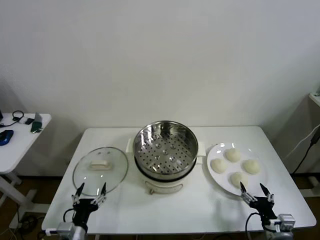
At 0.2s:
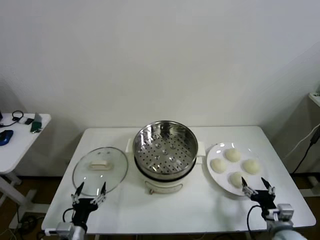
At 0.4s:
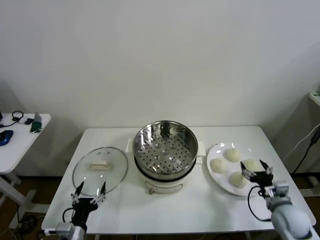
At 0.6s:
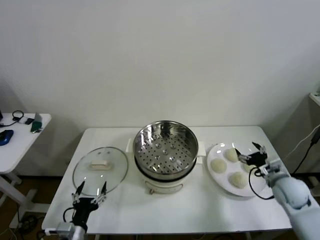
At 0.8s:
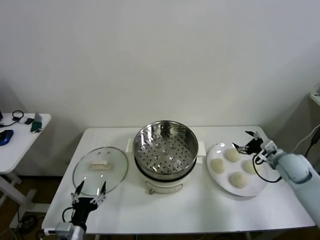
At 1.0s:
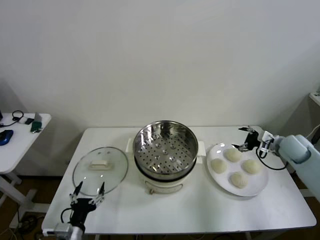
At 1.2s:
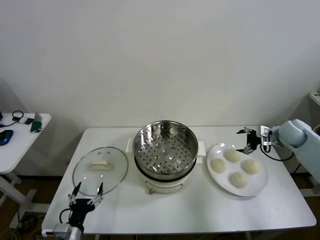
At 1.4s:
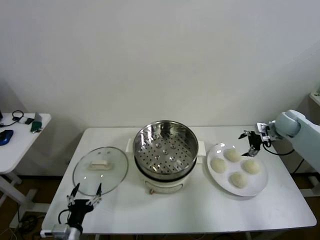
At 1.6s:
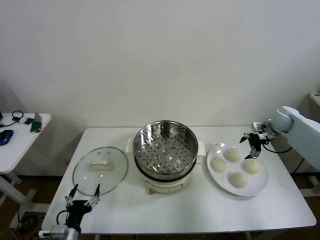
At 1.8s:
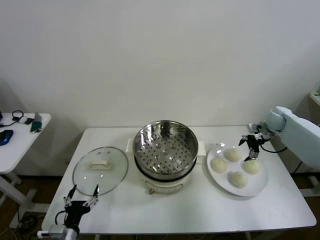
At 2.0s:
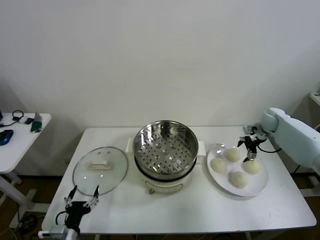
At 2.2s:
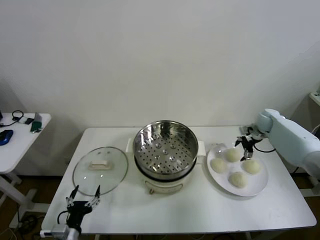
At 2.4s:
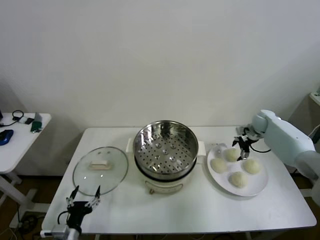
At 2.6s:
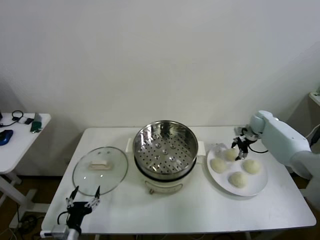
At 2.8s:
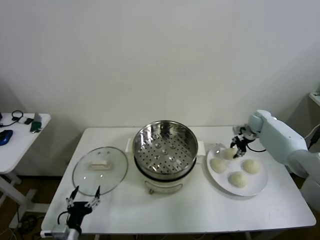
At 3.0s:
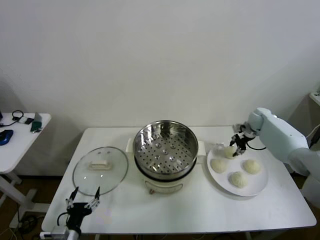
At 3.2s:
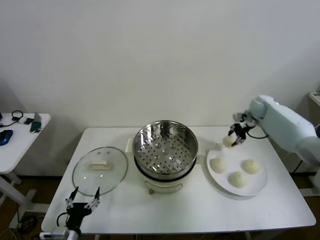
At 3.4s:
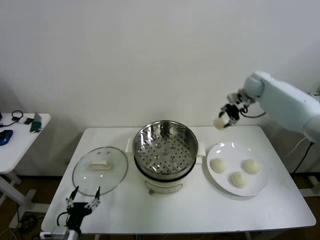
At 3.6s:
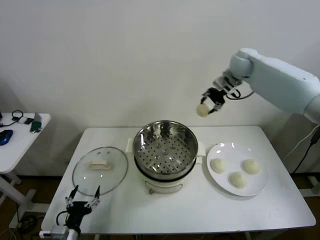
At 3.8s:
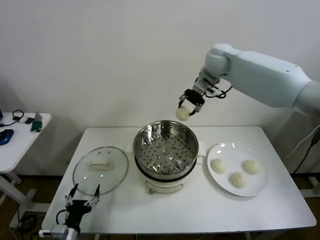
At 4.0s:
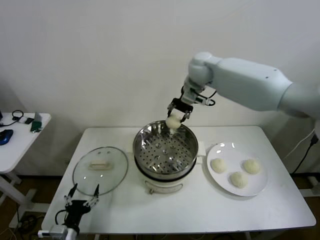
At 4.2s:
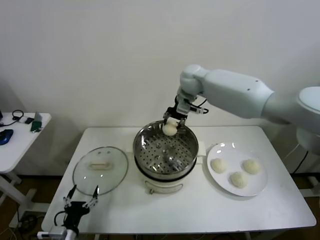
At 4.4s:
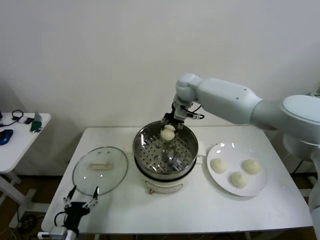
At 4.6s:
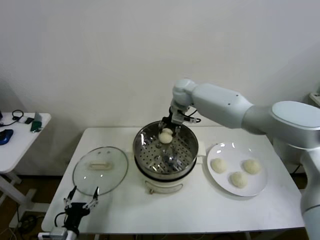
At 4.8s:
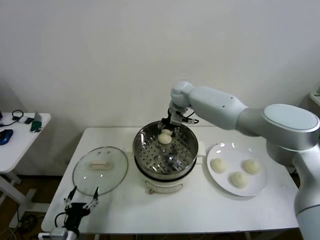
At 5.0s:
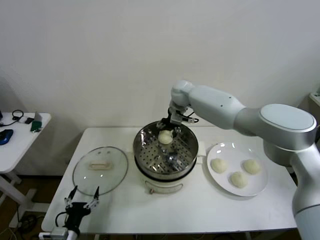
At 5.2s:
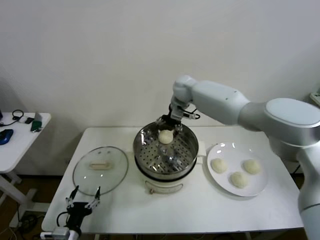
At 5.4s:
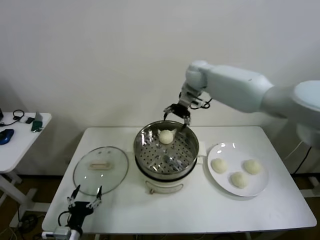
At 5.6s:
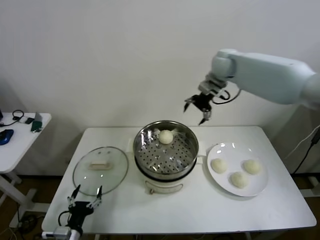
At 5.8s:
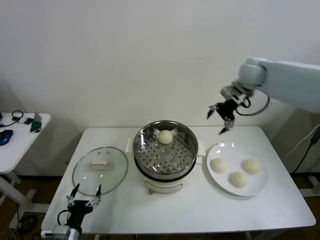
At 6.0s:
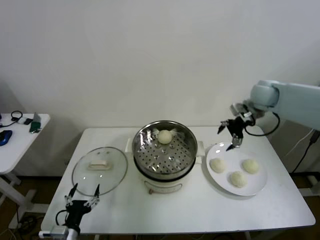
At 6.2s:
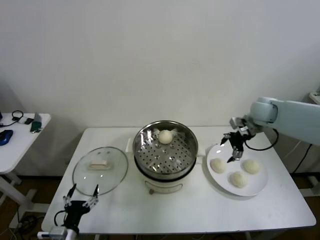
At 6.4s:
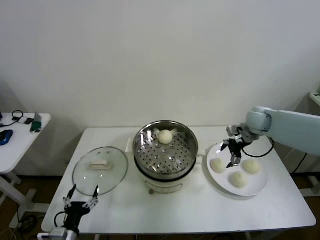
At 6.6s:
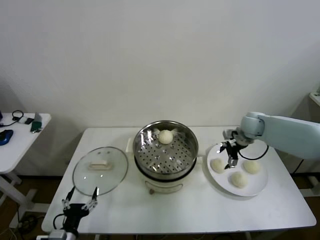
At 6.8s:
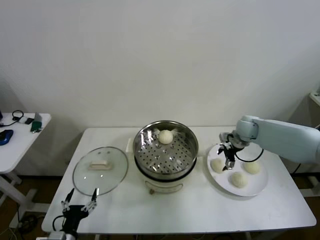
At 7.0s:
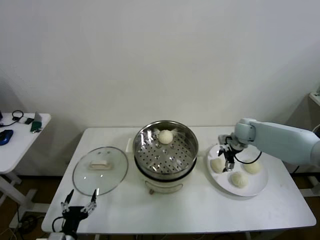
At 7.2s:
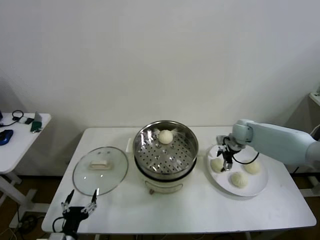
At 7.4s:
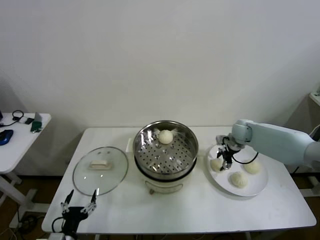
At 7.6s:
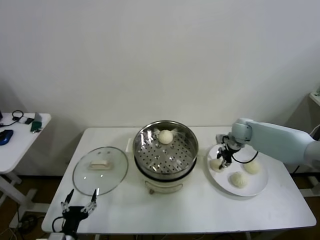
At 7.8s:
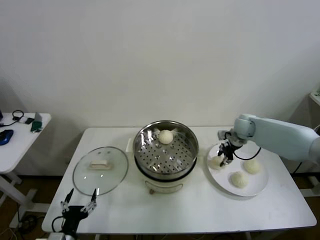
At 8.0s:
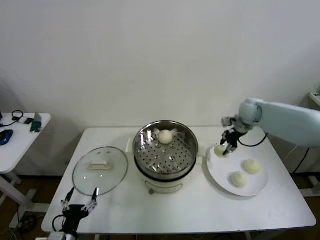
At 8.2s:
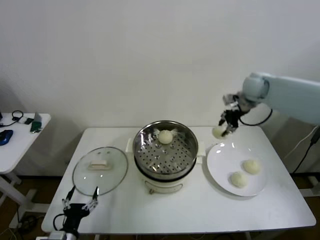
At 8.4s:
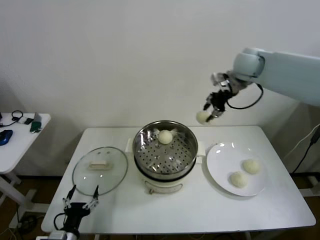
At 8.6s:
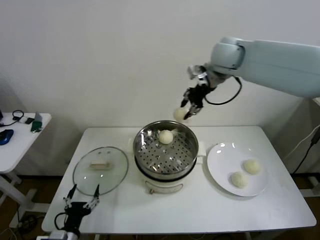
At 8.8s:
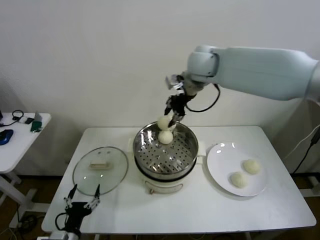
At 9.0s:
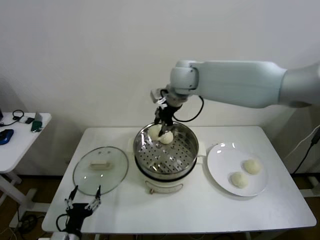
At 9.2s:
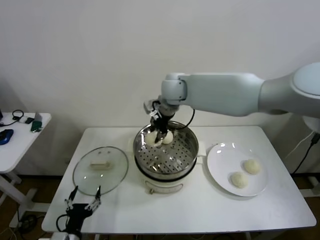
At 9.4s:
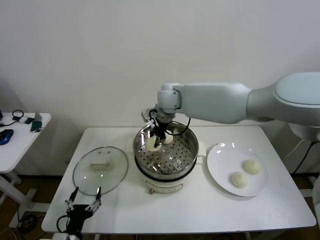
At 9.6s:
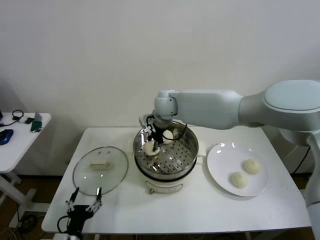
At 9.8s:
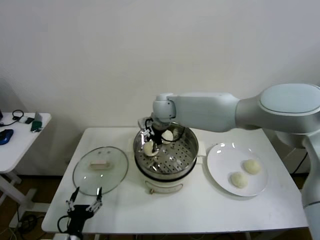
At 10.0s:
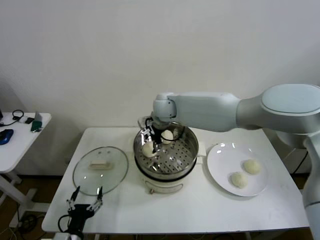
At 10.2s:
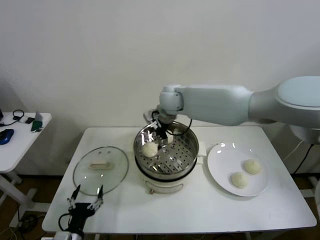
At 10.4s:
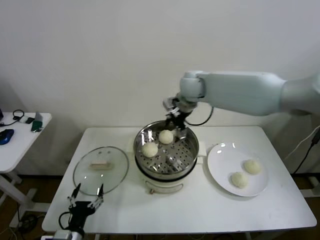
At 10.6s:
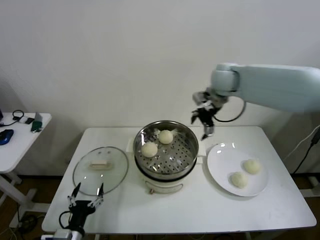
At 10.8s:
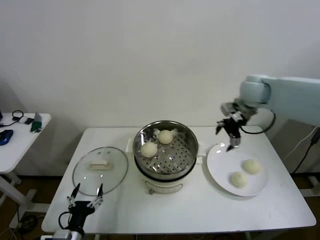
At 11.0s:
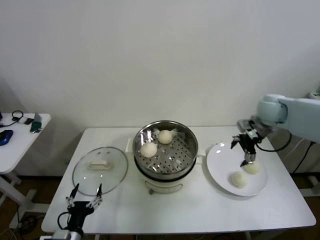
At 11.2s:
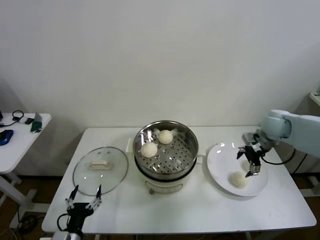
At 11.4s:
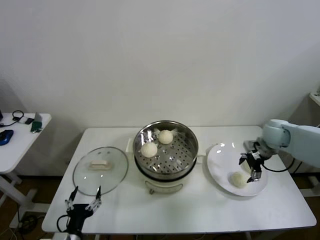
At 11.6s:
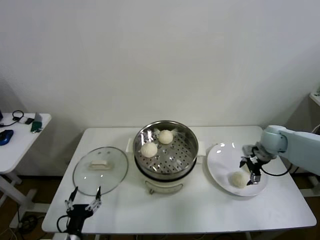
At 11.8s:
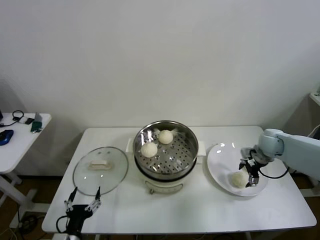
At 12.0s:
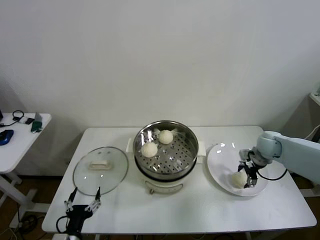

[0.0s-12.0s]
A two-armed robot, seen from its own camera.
Step, 0.0s to 2.8s: Grasp the baozi in the plate with right gripper.
Step, 3.0s to 5.0s: Place the baozi on the steamer with right gripper.
Step, 5.2s to 7.4s: Grasp the baozi in the plate with right gripper.
Step, 7.8s to 10.0s: Place the baozi on the steamer with right gripper.
1.6s to 3.0s: The right gripper heads forward, covering approximately 5 cm, and closes its fingers.
3.0s to 4.4s: The right gripper goes about 35 cm to the left.
4.4s to 6.0s: The right gripper is displaced to the right by approximately 25 cm, and opens.
6.0s to 7.6s: The right gripper heads downward, covering some 15 cm, and closes up.
7.6s to 9.0s: The right gripper travels to the left and upward by roughly 35 cm.
9.0s to 10.4s: The right gripper goes some 10 cm to the right, and opens its fingers.
10.4s to 12.0s: The right gripper moves to the right and downward, approximately 35 cm.

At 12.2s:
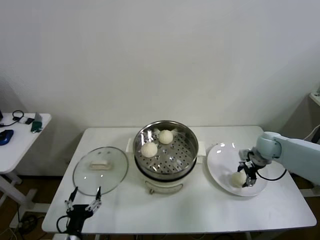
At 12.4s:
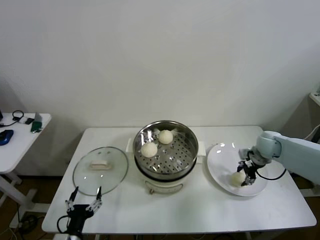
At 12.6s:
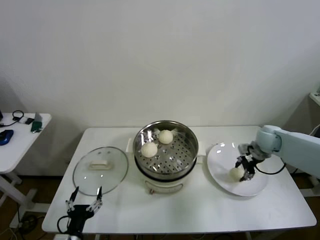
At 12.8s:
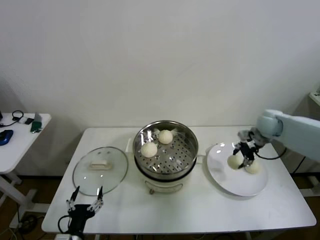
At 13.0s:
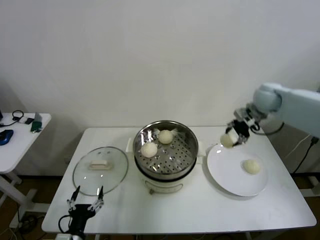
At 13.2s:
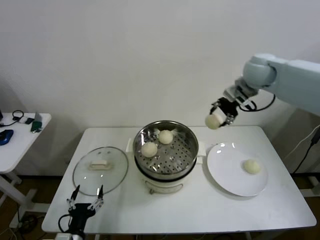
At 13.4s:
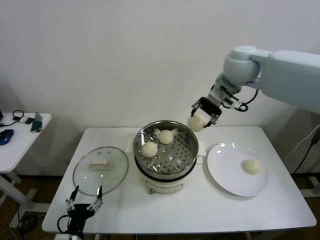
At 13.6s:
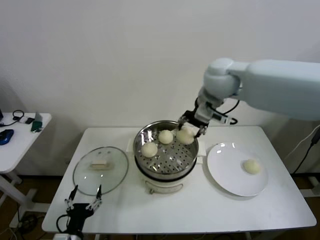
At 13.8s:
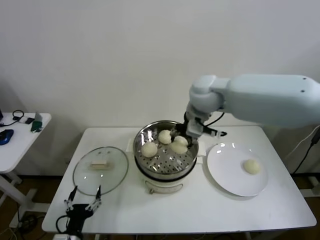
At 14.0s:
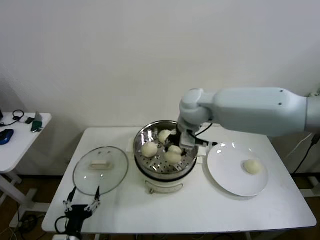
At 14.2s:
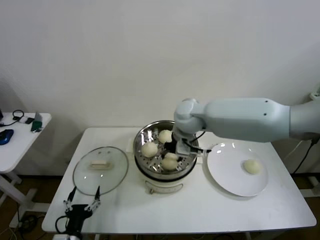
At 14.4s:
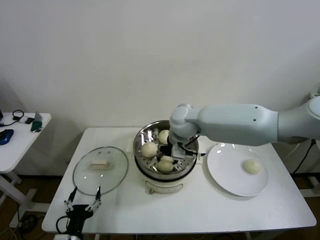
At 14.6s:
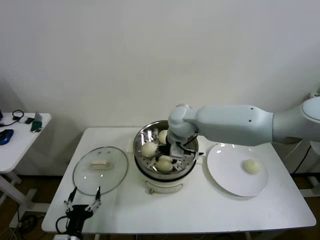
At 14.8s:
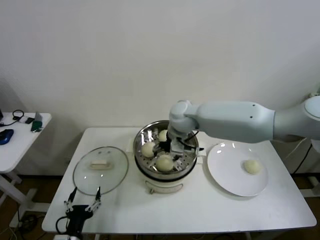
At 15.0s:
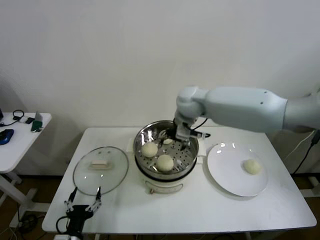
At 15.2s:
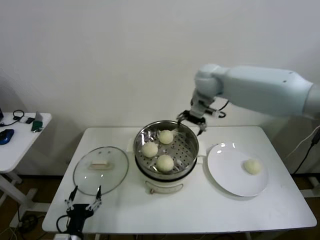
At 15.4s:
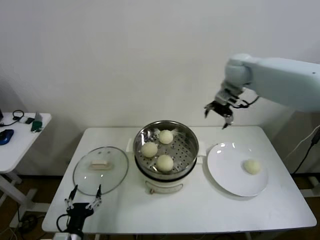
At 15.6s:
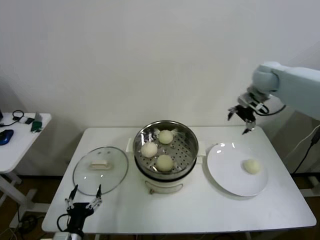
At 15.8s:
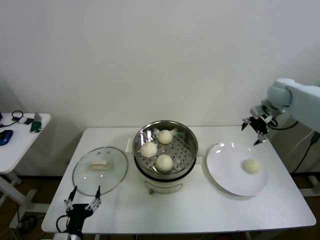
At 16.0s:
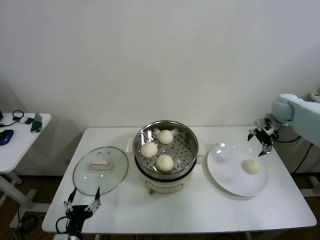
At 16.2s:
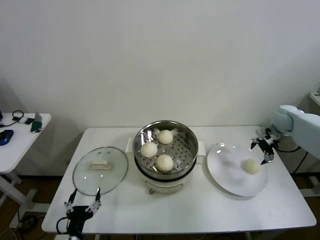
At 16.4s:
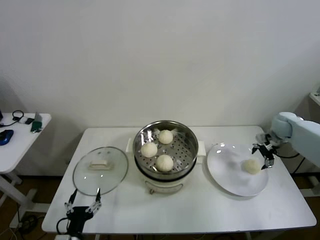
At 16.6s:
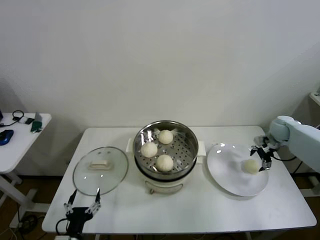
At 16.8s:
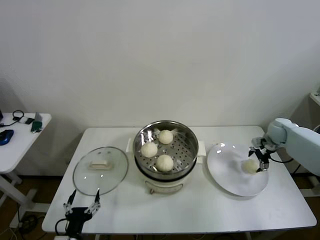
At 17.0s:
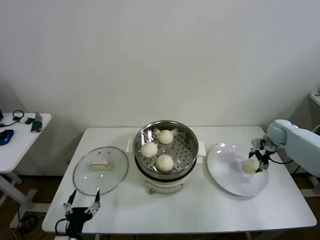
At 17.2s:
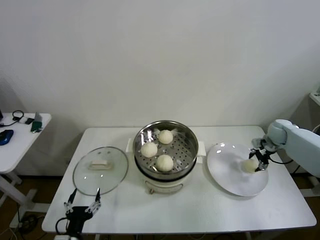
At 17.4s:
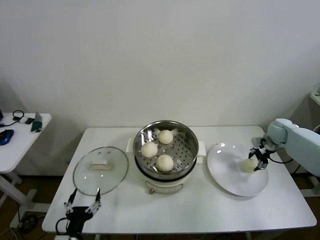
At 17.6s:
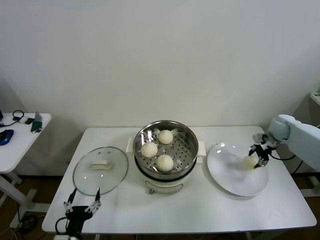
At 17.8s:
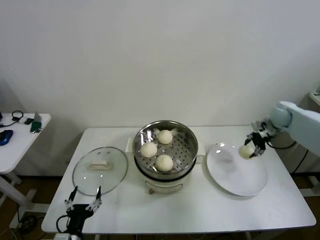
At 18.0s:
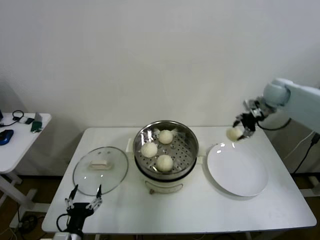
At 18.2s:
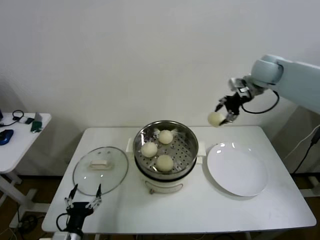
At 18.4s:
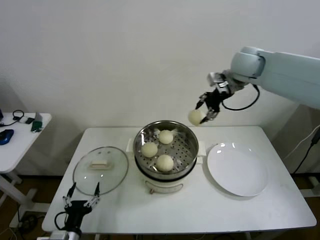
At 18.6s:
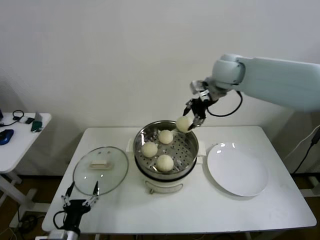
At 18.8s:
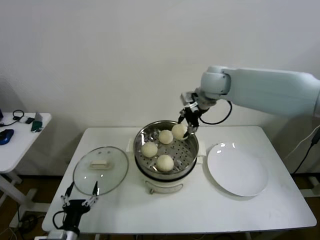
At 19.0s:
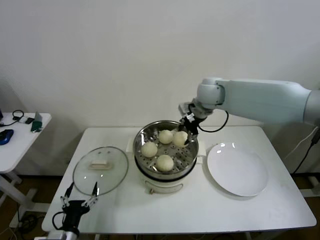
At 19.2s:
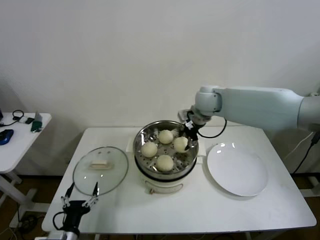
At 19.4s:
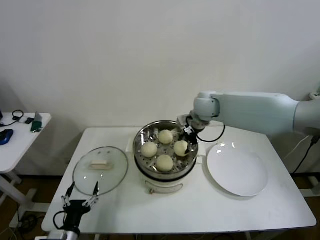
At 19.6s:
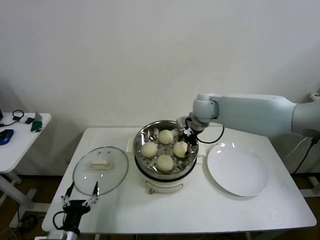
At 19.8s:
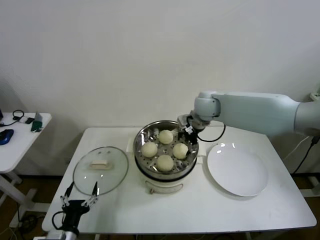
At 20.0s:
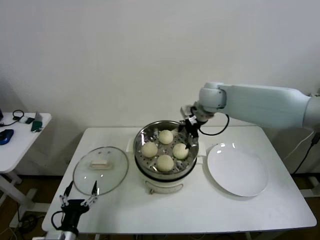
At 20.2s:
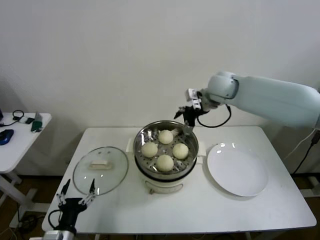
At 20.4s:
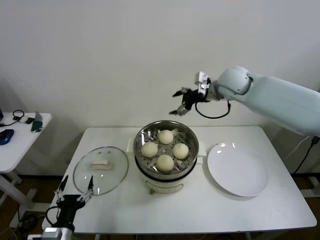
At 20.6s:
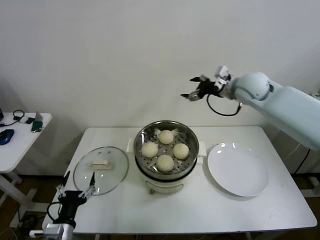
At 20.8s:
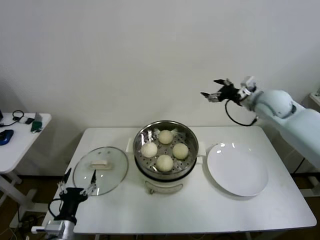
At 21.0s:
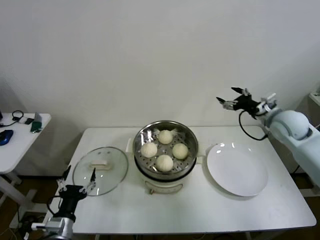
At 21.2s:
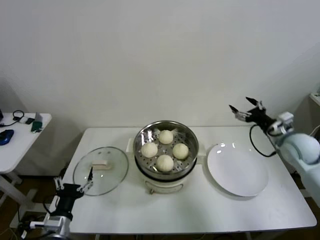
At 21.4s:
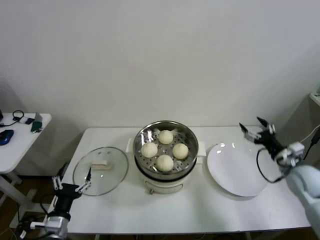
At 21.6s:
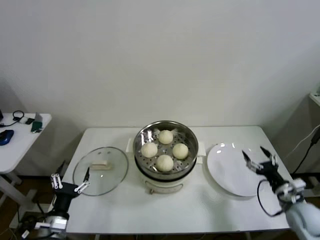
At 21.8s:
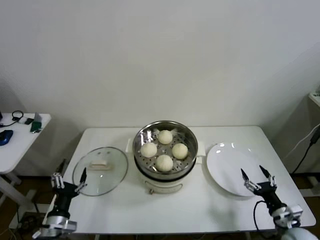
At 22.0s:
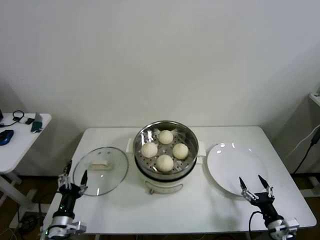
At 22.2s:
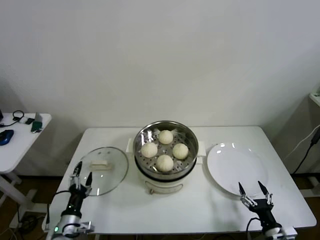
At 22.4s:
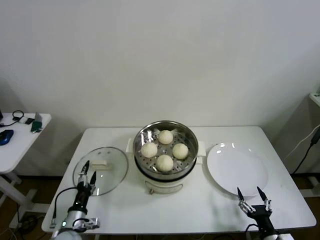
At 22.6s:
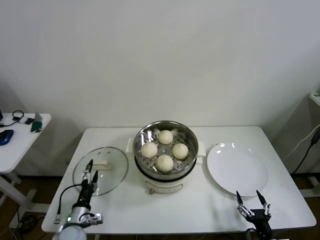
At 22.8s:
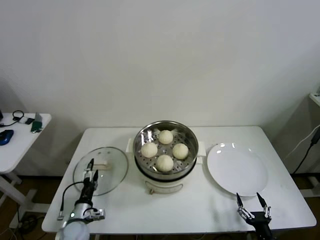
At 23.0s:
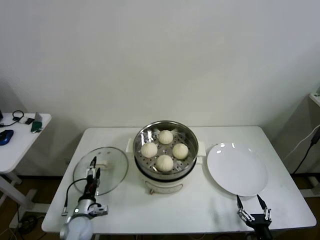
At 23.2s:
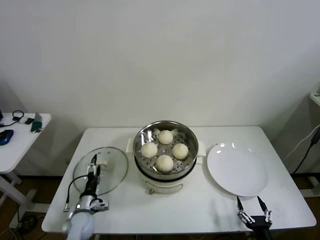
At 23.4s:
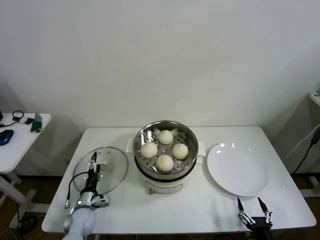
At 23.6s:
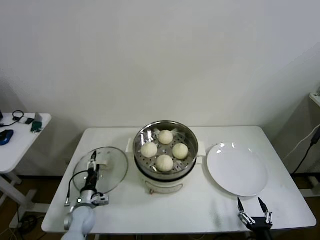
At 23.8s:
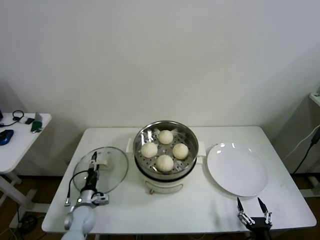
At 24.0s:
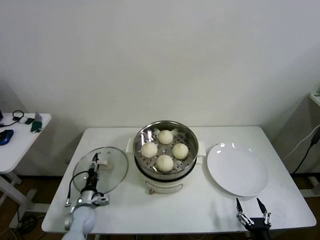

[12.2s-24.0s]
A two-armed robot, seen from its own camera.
Step, 12.4s to 14.6s: Place the baozi on the steamer with right gripper.
Step, 15.0s to 17.2s: Grasp the baozi in the plate with right gripper.
Step, 17.4s to 19.6s: Place the baozi on the steamer with right gripper.
12.2s to 13.6s: The right gripper heads upward and to the left, covering some 35 cm.
13.6s to 15.2s: The right gripper moves forward, some 10 cm, reaches some 15 cm downward, then returns, and opens up.
15.2s to 16.6s: The right gripper shifts about 40 cm to the right and downward.
16.6s to 18.2s: The right gripper is displaced upward and to the left by approximately 30 cm, and closes its fingers.
18.2s to 19.6s: The right gripper heads to the left and downward, covering roughly 20 cm.
19.6s to 21.0s: The right gripper shifts roughly 25 cm to the right, and opens its fingers.
21.0s to 22.6s: The left gripper shifts some 10 cm downward and forward. Meanwhile the right gripper travels backward and downward by roughly 50 cm.
22.6s to 24.0s: The left gripper heads forward, covering some 10 cm, and closes.
